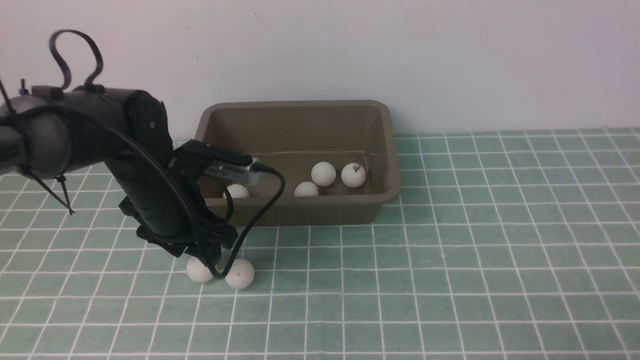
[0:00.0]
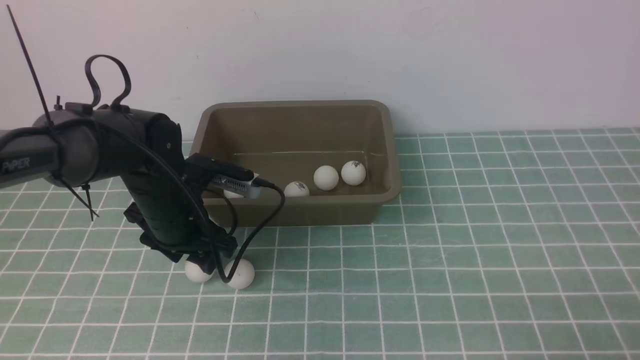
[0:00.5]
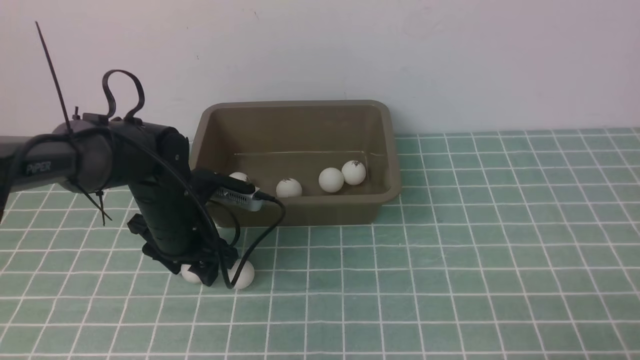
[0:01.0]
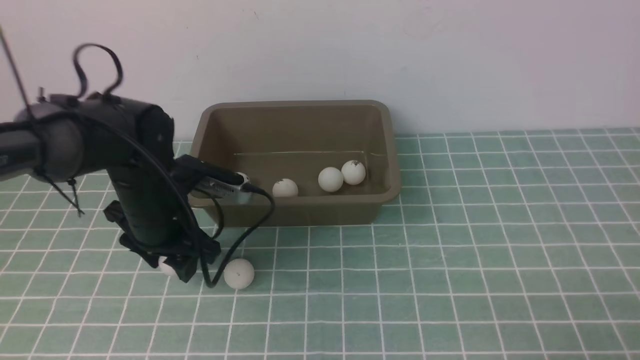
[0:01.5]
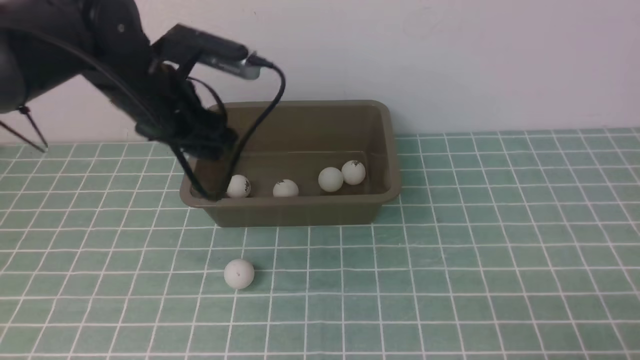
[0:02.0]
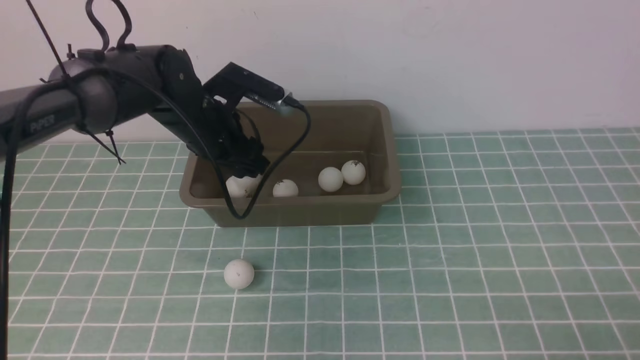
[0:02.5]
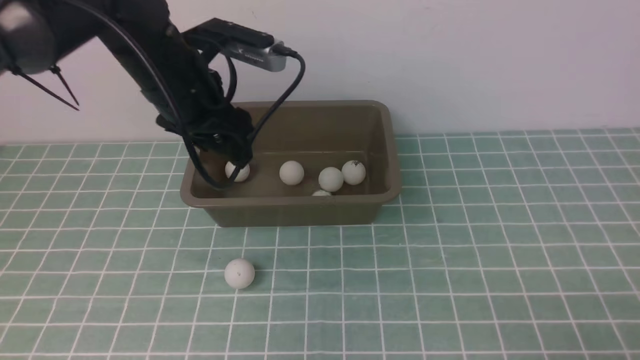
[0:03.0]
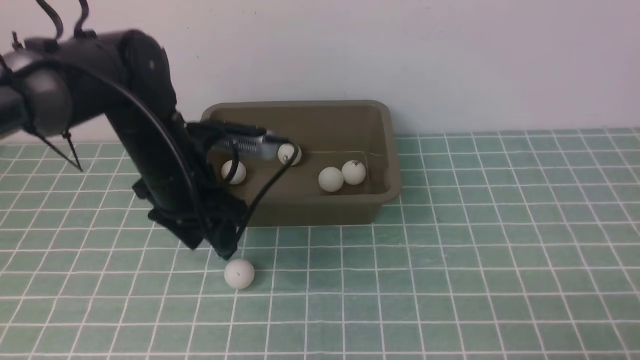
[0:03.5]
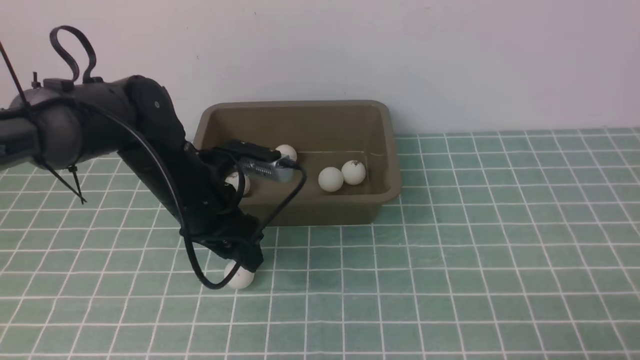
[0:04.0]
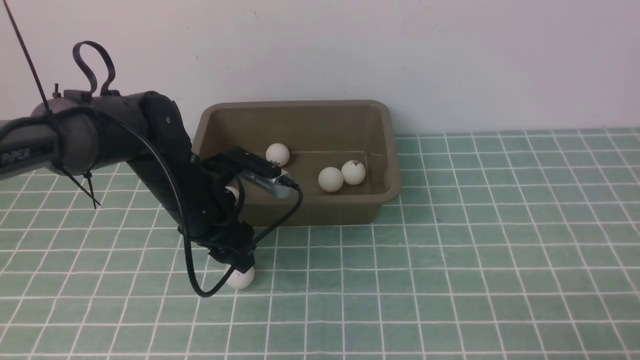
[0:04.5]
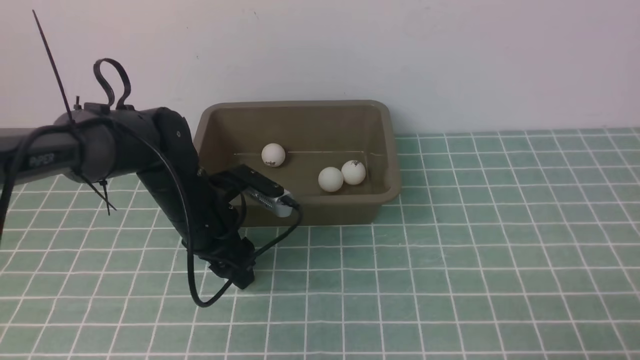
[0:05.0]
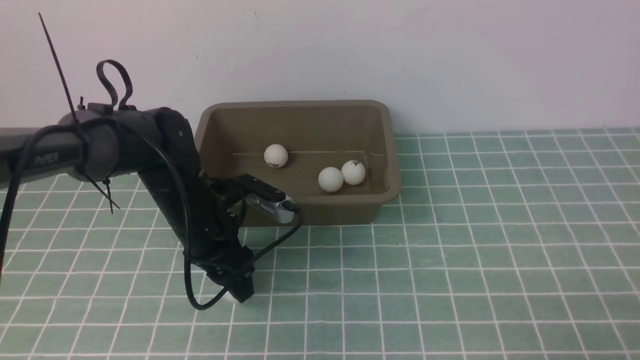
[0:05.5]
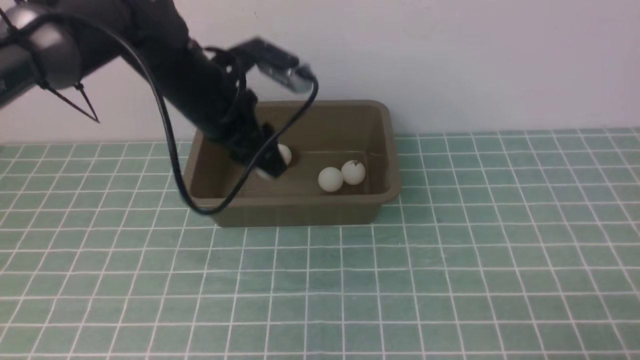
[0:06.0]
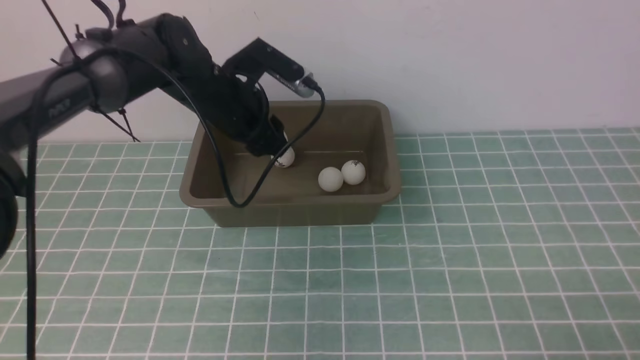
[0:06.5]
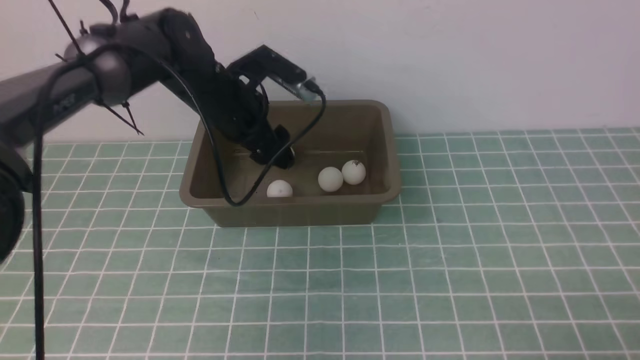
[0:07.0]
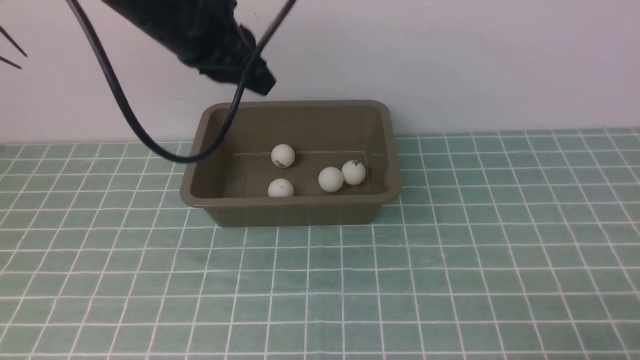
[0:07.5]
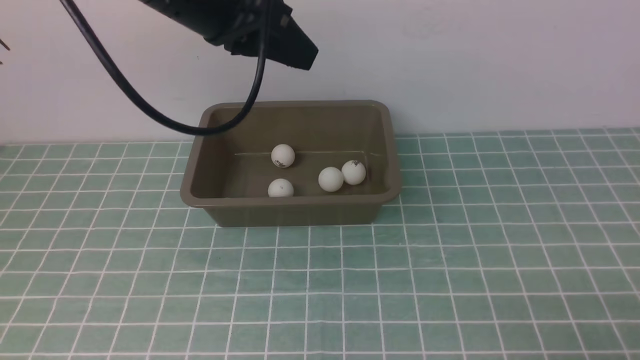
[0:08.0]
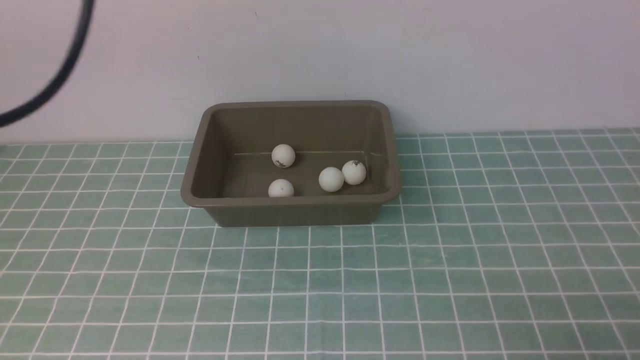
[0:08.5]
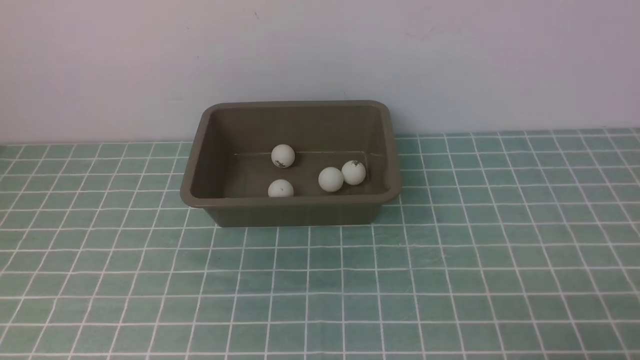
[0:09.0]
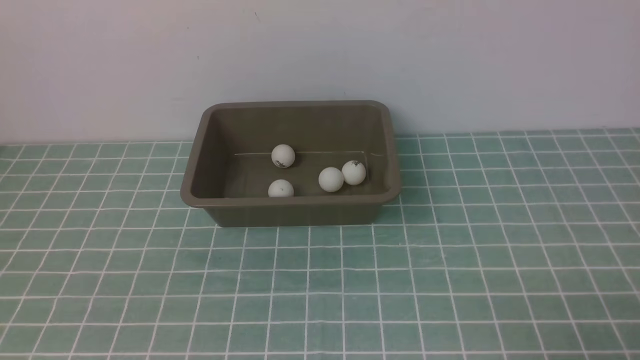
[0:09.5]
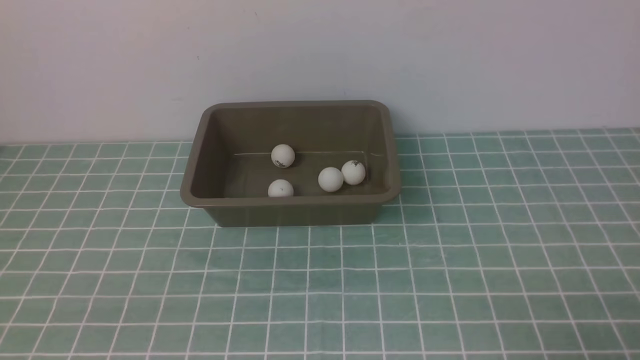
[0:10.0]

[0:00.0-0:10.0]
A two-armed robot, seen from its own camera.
Step, 0:02.0 to 0:02.5: use the left arm to put the table tennis ball into the box.
Step, 0:03.0 to 0:05.5: use the left arm to clamp the table tennis ball closest to it.
Step, 0:06.0 to 0:07.0: use the left arm to put the table tennis ball into the box.
0:00.0 to 0:02.0: The left gripper heads upward, covering about 5 cm.
0:02.0 to 0:04.0: The left gripper is displaced downward by some 5 cm.
0:04.0 to 0:06.0: The left gripper travels upward by roughly 5 cm.
0:06.0 to 0:08.0: The left gripper is displaced upward by about 15 cm, and closes up.
0:08.0 to 0:10.0: The left gripper moves backward, downward and to the left, some 40 cm.

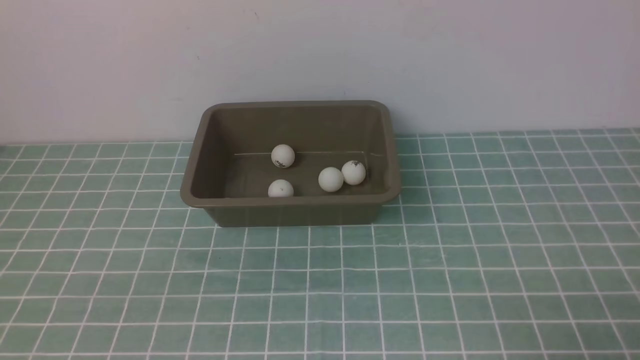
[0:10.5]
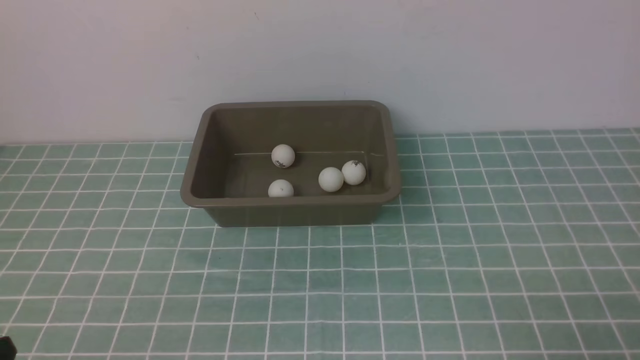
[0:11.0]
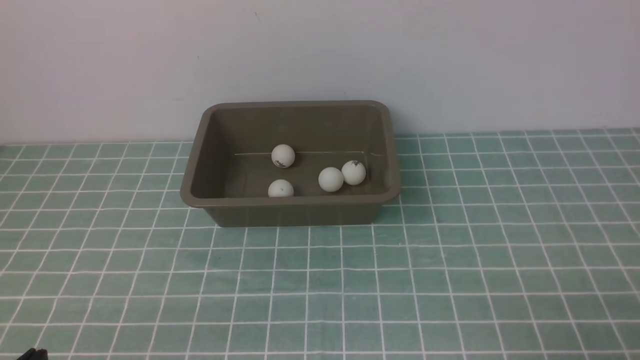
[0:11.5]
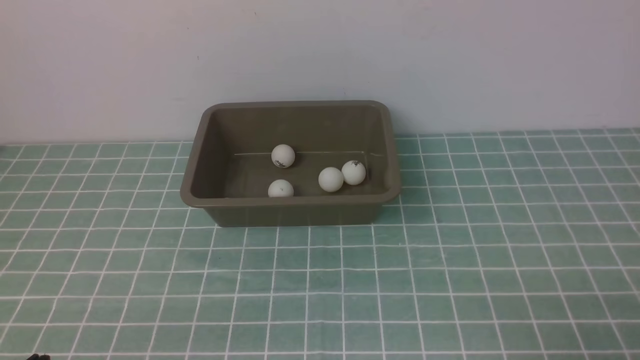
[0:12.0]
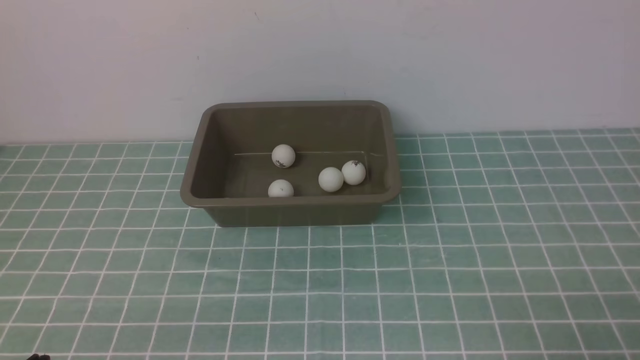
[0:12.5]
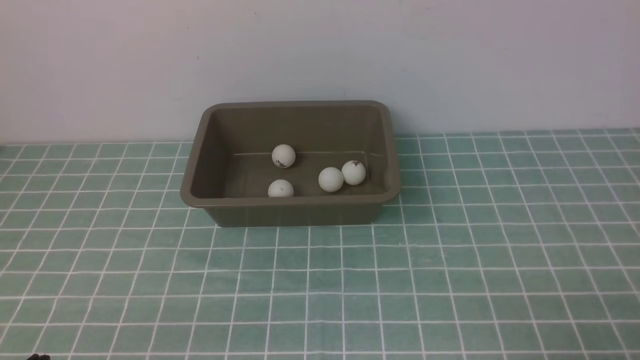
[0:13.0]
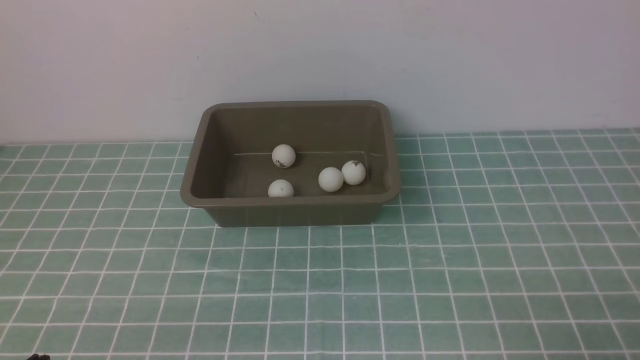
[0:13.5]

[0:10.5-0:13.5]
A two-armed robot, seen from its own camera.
0:12.0 to 0:13.5: Both grippers stay put.
